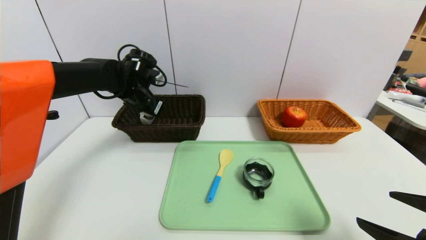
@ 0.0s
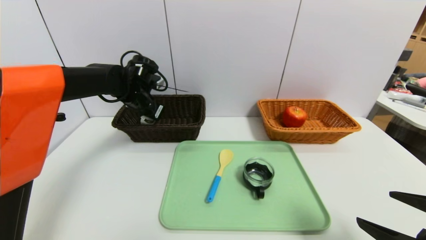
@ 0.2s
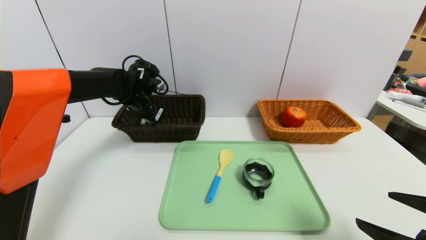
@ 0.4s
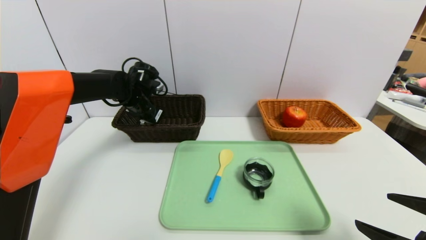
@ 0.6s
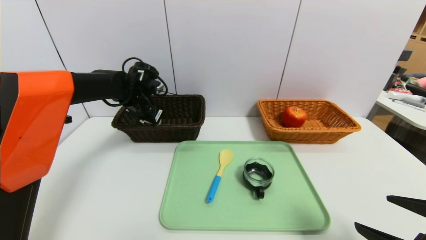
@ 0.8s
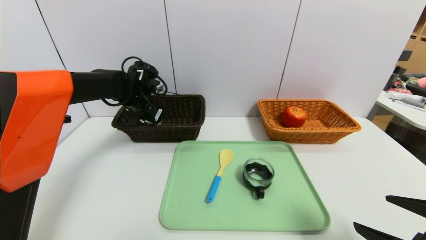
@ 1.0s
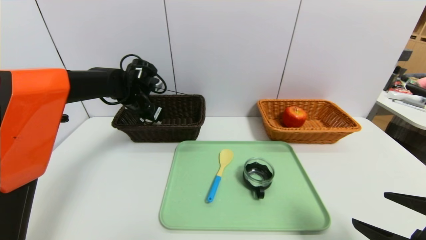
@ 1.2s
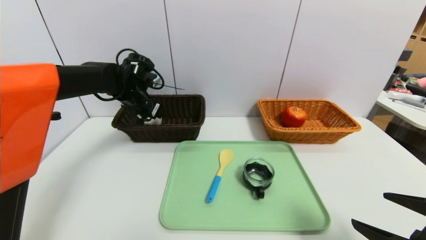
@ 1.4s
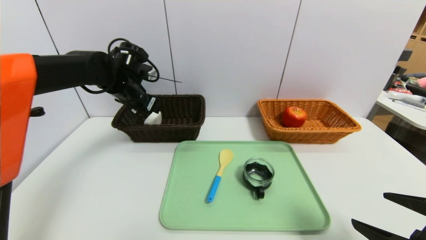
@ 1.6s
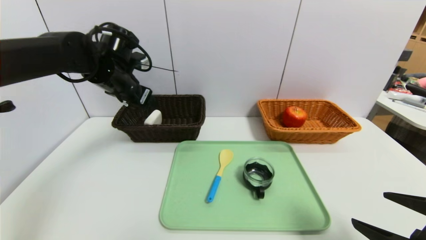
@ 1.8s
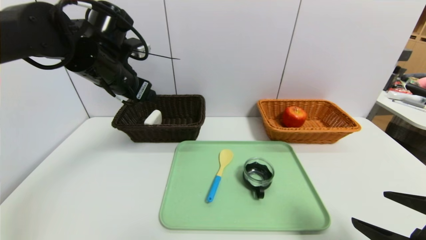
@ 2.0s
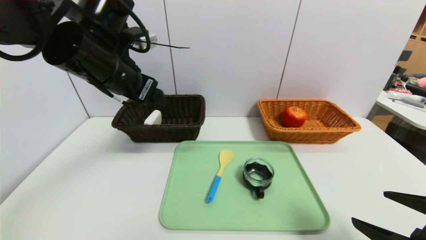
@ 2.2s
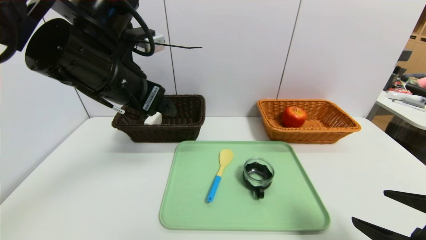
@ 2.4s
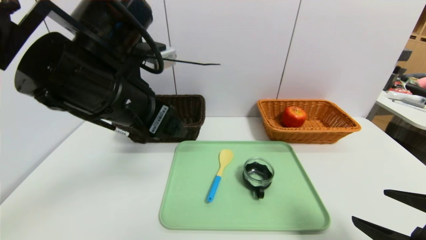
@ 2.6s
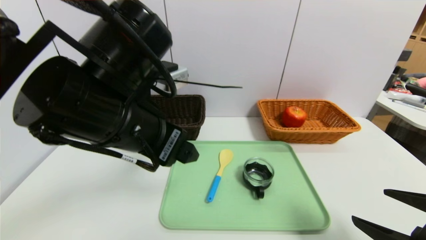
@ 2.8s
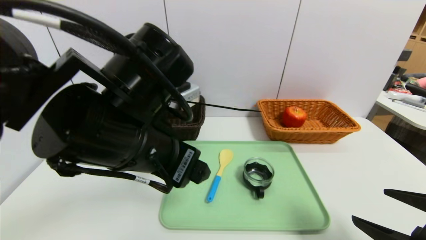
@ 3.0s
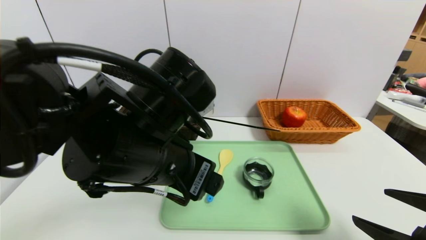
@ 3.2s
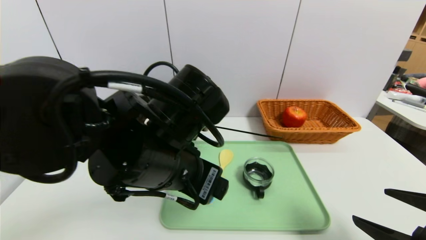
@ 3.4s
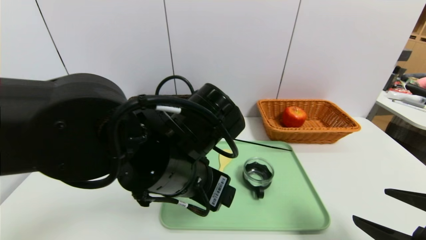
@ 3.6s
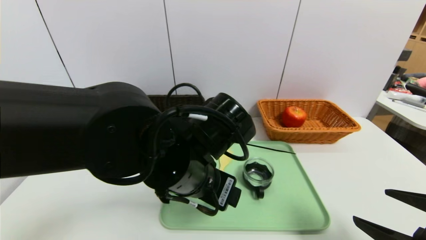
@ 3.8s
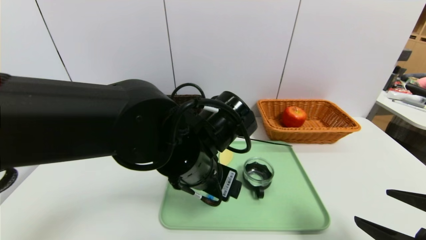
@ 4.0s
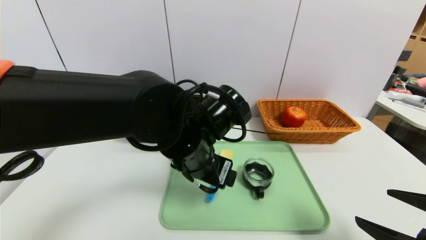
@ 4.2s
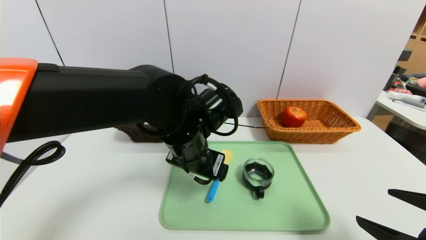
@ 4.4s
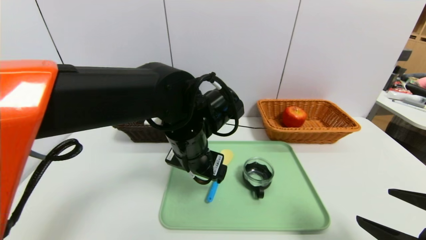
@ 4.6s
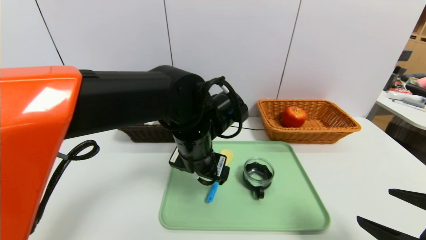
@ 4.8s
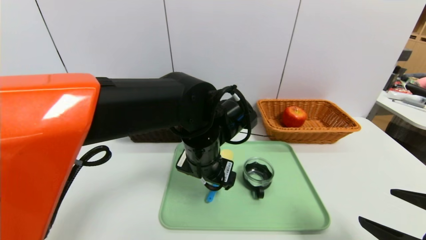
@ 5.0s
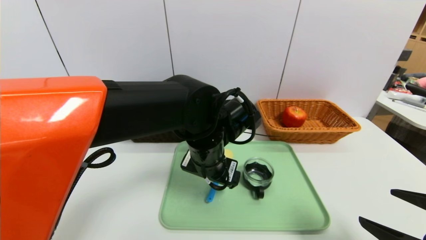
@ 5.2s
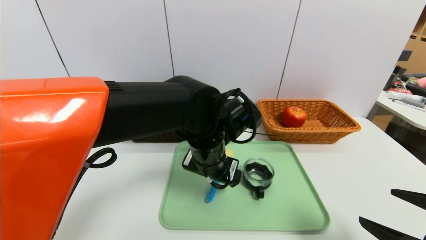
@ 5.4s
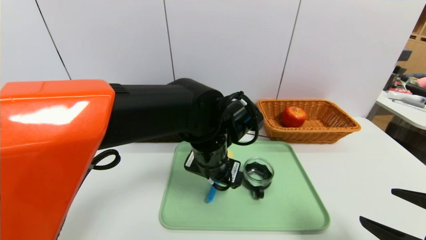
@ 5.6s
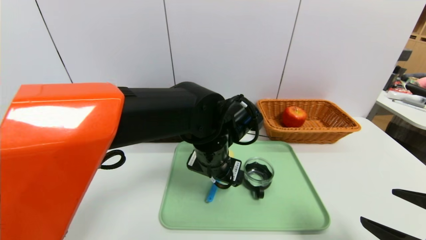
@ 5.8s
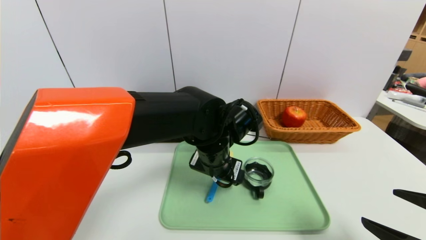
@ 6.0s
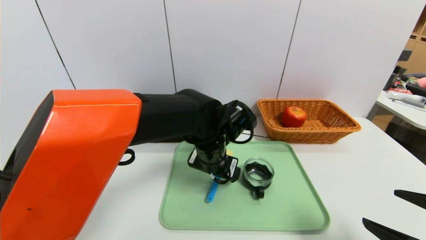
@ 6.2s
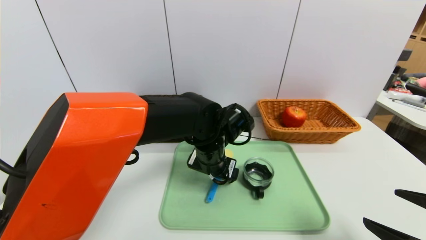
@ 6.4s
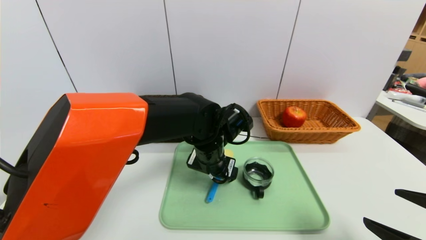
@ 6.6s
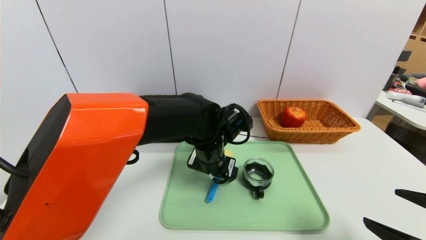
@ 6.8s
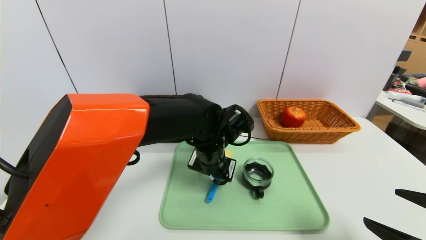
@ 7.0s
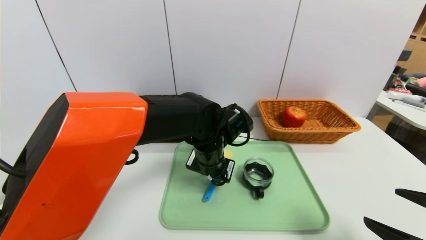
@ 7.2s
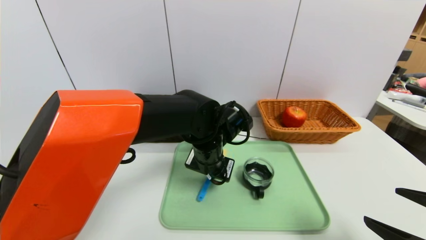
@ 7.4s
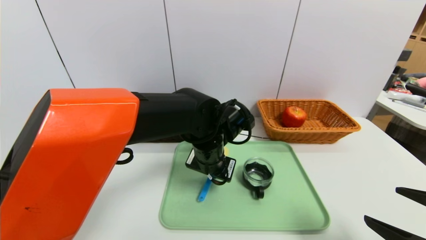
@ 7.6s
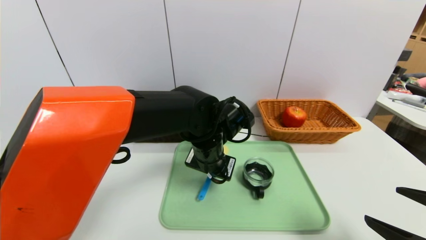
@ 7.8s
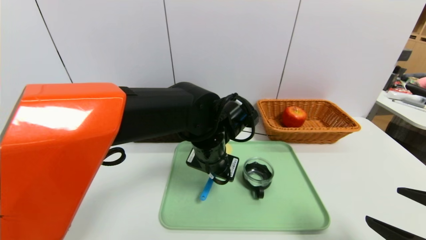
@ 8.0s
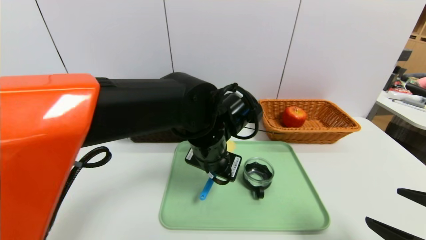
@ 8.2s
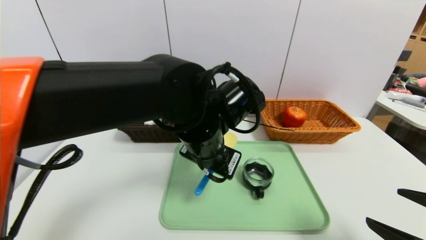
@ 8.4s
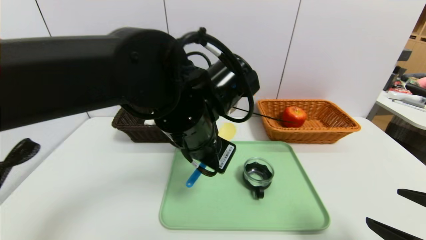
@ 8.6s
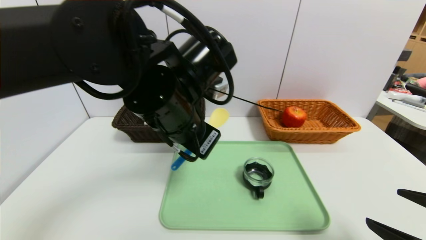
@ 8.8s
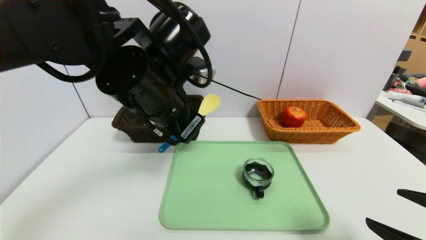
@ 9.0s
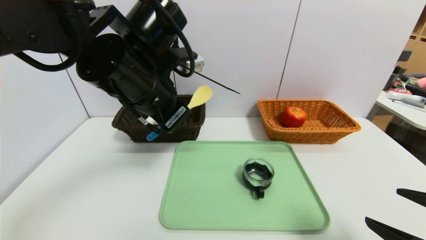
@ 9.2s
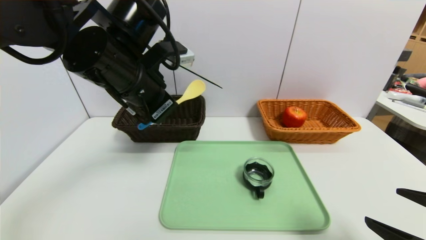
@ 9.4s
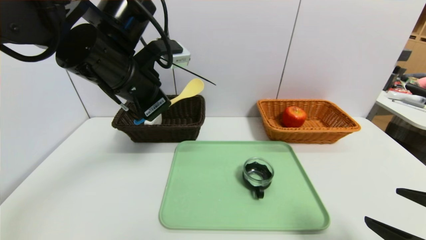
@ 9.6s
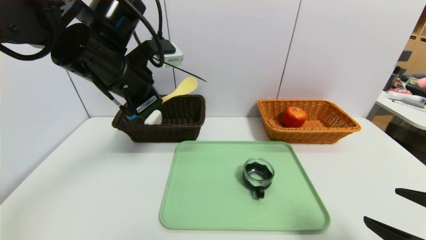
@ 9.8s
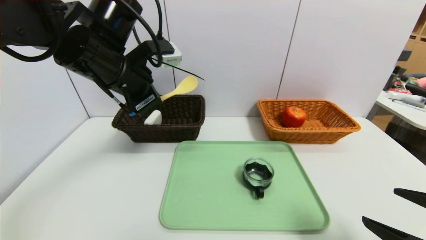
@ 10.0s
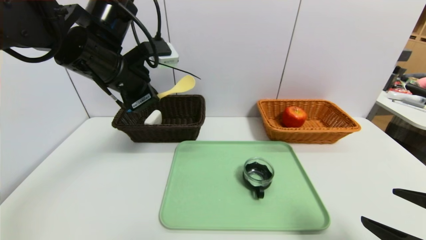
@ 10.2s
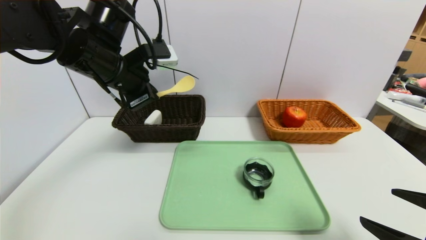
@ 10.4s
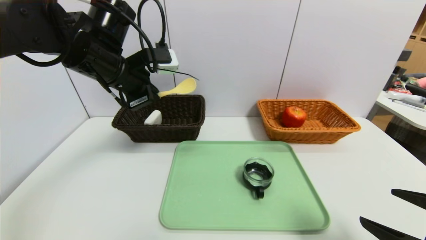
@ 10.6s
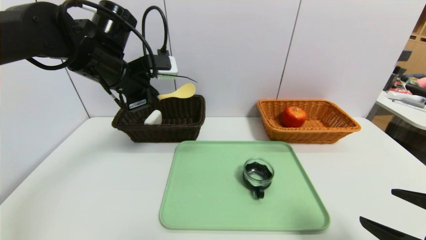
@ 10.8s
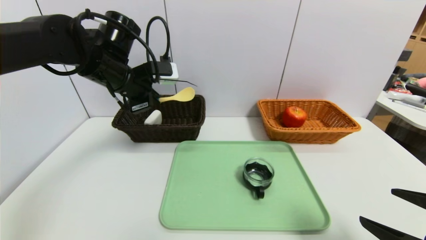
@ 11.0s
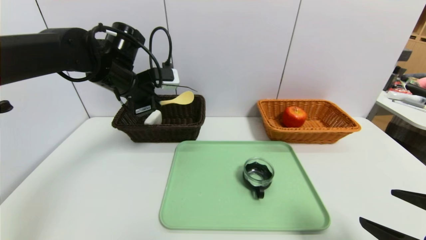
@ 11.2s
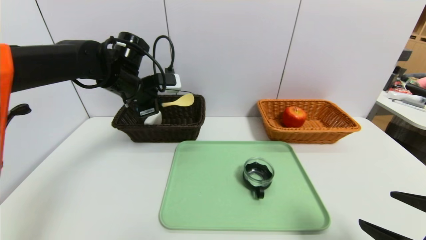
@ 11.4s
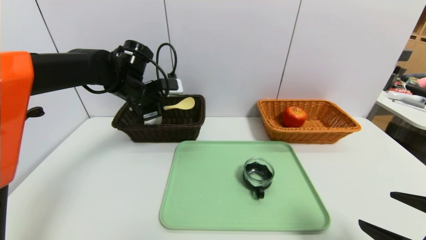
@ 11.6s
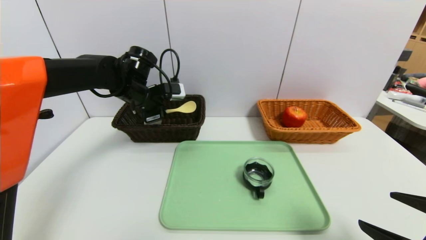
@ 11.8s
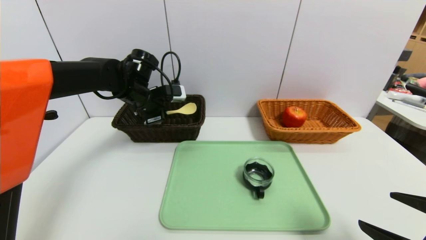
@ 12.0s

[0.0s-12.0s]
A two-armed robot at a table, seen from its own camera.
Task of the whole recording: place the food in the right basket with the right gripper, and place the non food items in the left basket with the left gripper.
Step, 0.0s to 2.2s: Grasp the soap and put it in the left basket.
0.0s to 1.6s: The left gripper opens.
1.6s to 3.0s: The left gripper is displaced backward and to the right by roughly 25 cm.
3.0s to 4.4s: The left gripper heads forward, downward and to the right, covering approximately 10 cm.
4.4s to 6.0s: The left gripper shifts by some 5 cm.
6.0s to 7.6s: The left gripper closes.
7.6s to 9.0s: The left gripper heads upward and to the left, covering approximately 15 cm.
9.0s to 10.4s: The left gripper moves to the left and forward, about 10 cm.
10.4s to 12.0s: The left gripper moves forward and downward, about 15 cm.

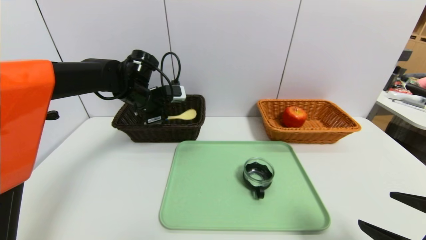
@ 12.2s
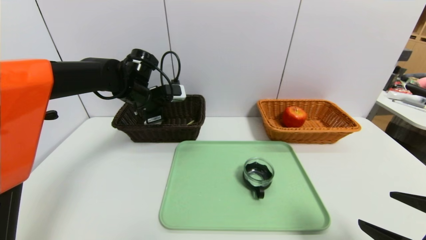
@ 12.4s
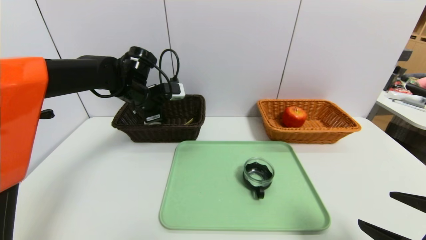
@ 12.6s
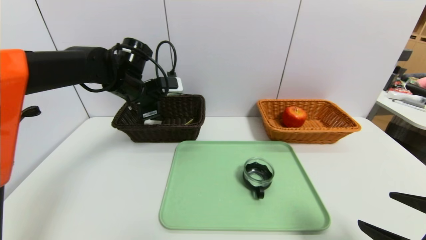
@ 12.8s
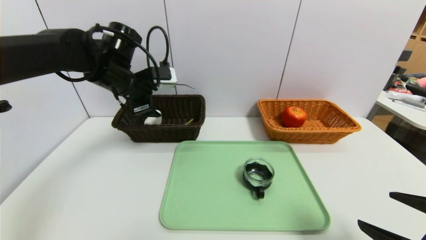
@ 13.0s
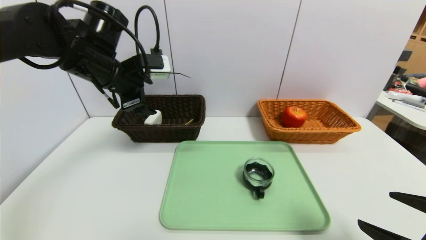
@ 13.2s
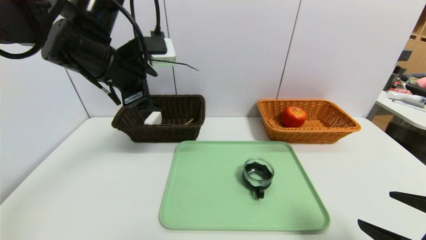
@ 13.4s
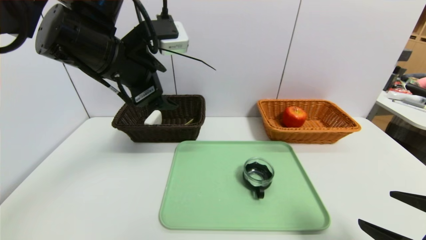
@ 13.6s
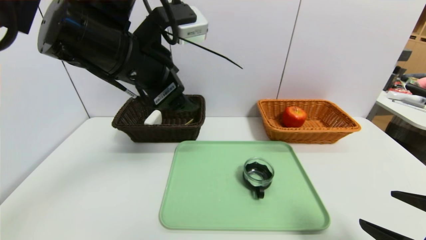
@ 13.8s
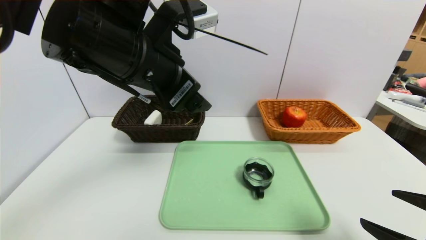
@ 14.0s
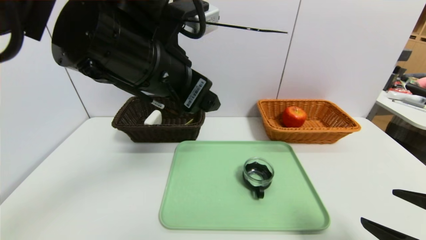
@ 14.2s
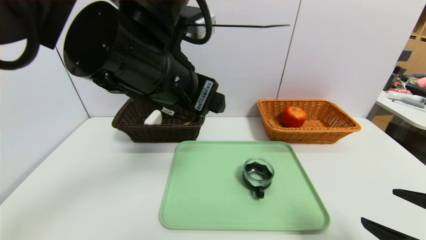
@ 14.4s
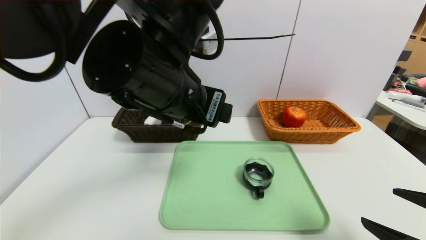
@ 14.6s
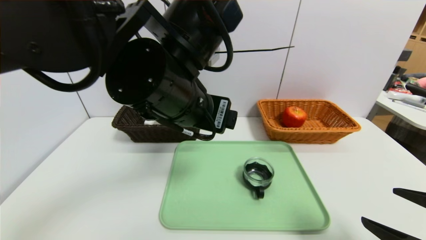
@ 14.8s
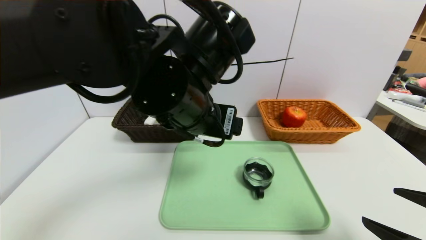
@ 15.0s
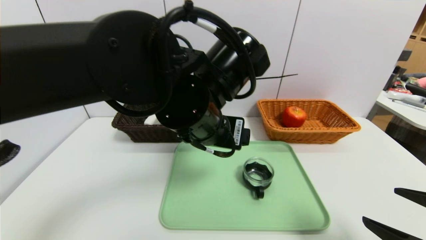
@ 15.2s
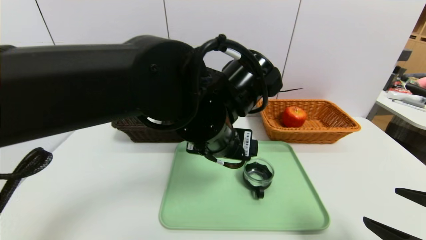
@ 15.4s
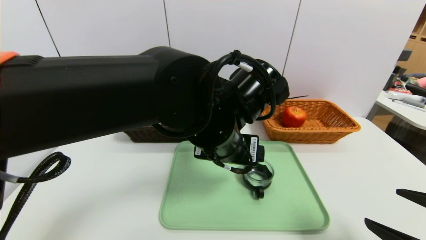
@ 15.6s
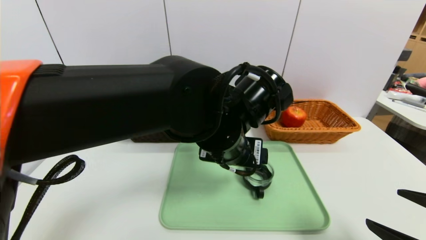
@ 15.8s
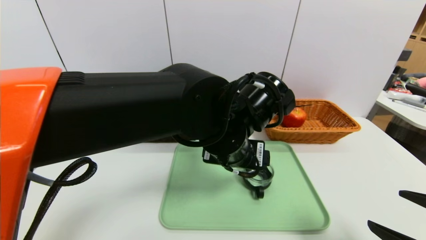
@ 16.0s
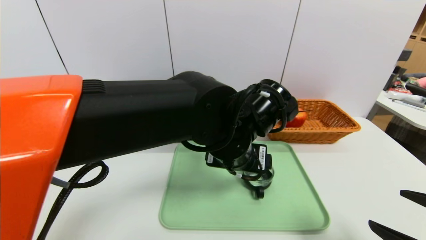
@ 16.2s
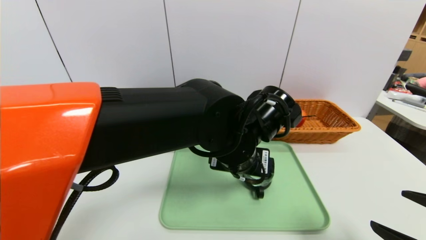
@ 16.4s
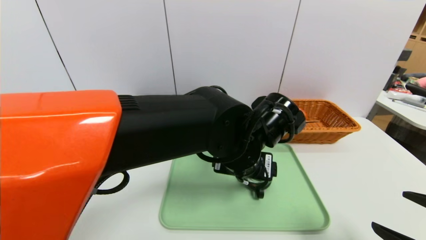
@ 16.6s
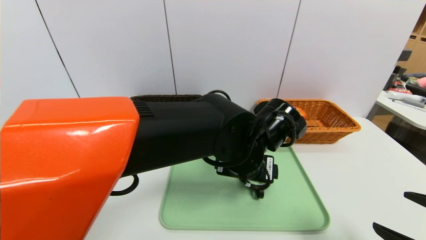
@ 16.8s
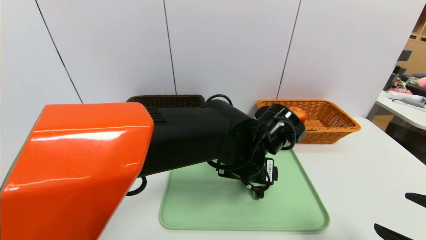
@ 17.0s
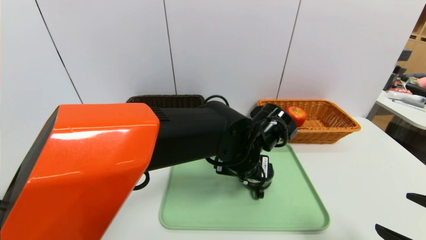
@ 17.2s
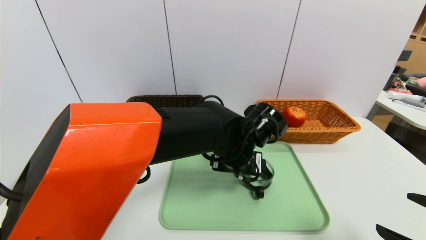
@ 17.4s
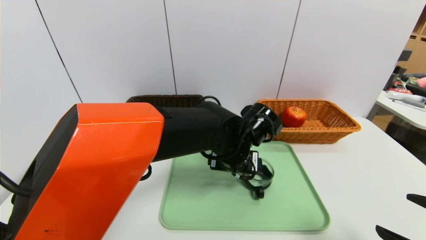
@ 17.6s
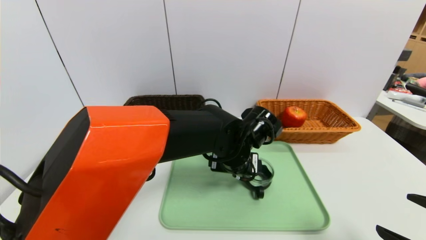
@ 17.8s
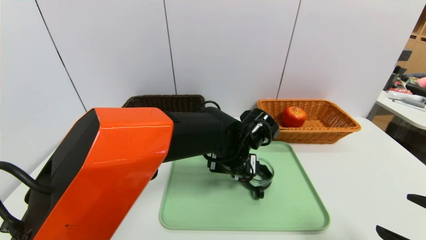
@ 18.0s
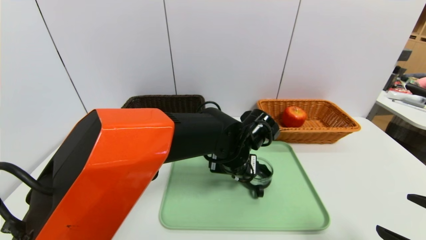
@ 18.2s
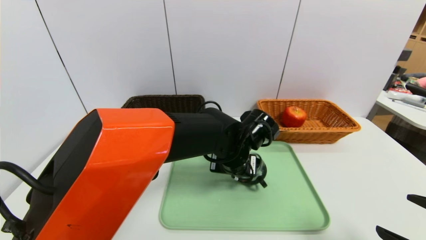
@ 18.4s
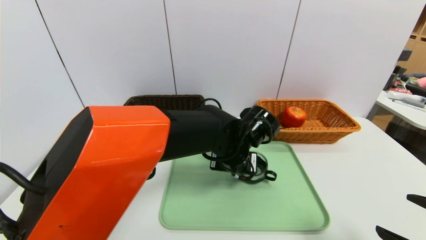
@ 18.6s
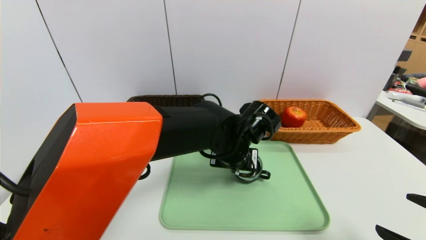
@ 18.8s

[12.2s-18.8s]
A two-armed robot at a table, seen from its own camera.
Task of the whole recording: place the food in the right basket with the right gripper, and place the non food items in the left basket with the left gripper.
12.2s to 13.8s: The left gripper goes roughly 20 cm backward and upward, and opens up.
13.8s to 15.4s: The left gripper heads to the right and downward, covering some 15 cm.
15.4s to 17.2s: The left gripper moves downward and to the right, some 10 cm.
17.2s to 18.8s: The left gripper closes.
